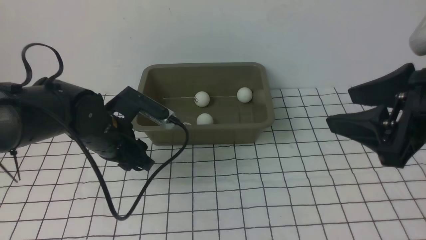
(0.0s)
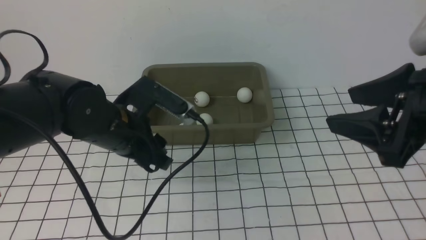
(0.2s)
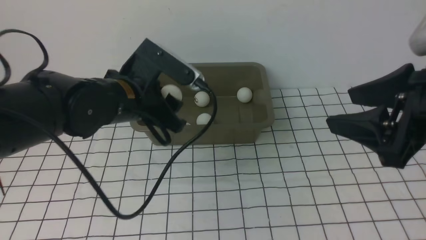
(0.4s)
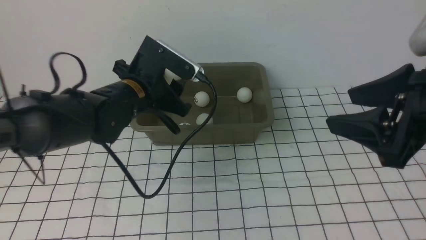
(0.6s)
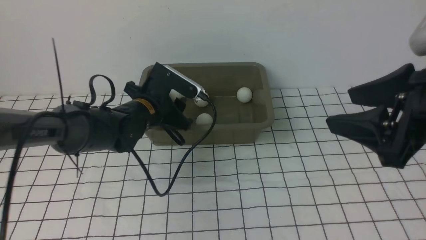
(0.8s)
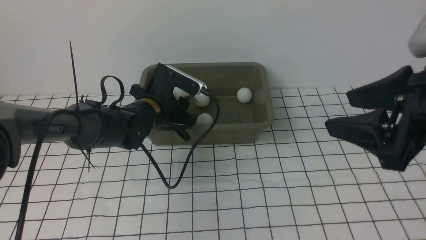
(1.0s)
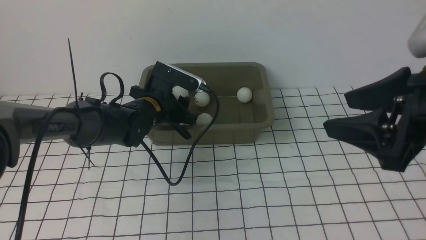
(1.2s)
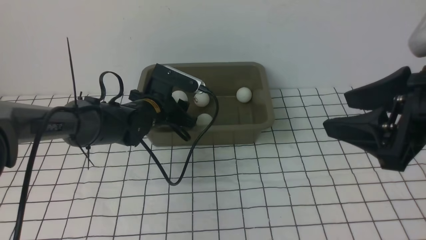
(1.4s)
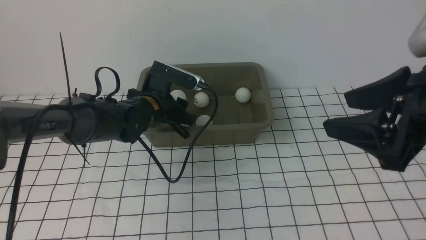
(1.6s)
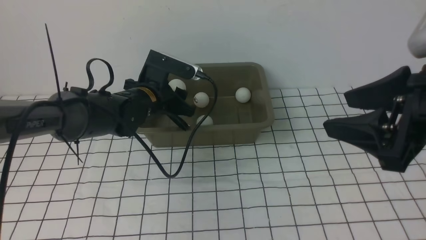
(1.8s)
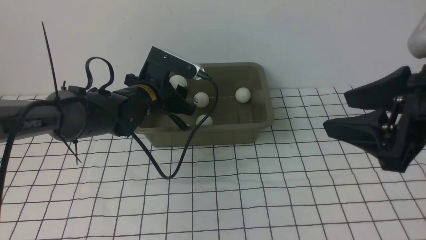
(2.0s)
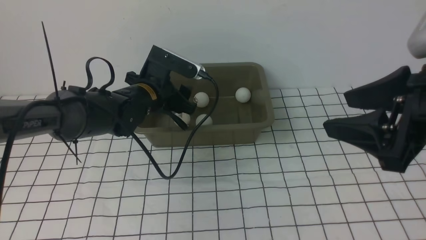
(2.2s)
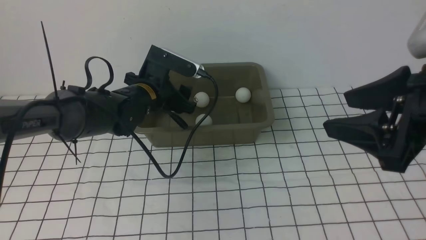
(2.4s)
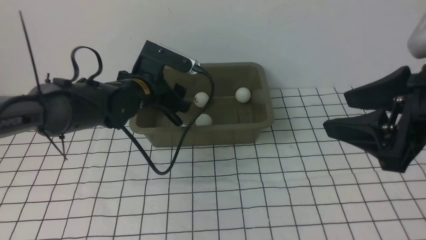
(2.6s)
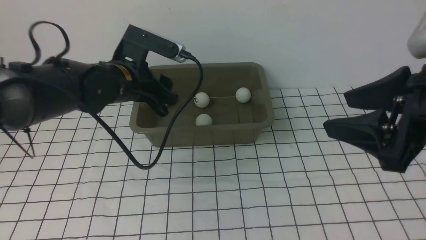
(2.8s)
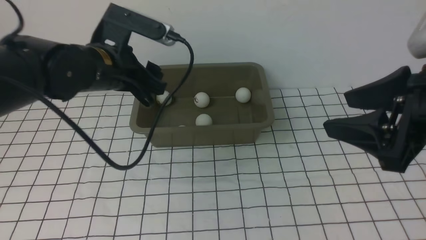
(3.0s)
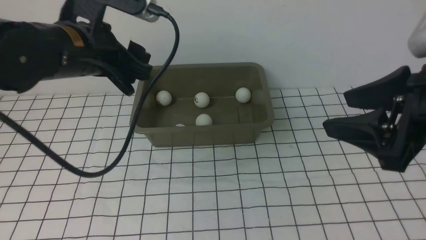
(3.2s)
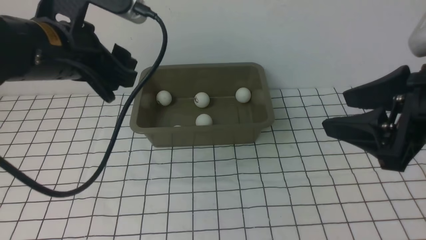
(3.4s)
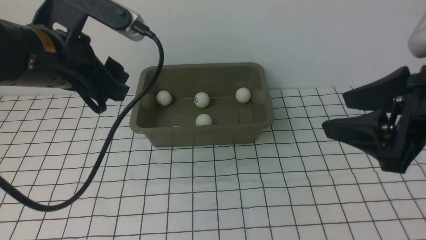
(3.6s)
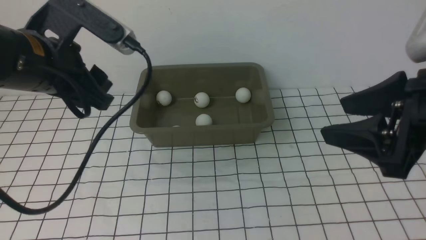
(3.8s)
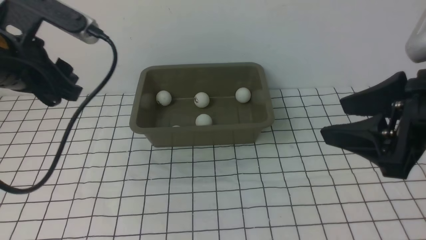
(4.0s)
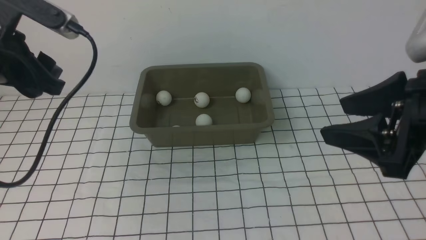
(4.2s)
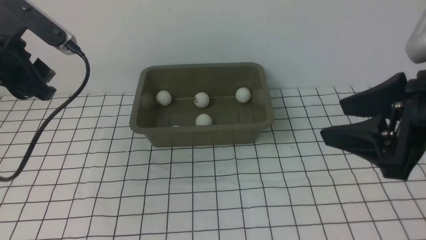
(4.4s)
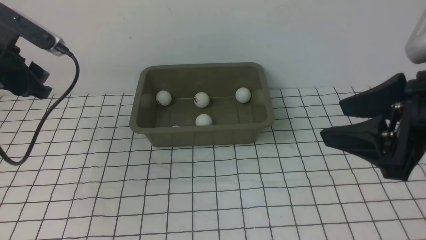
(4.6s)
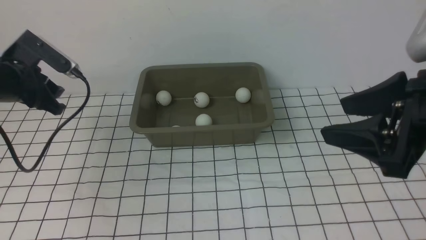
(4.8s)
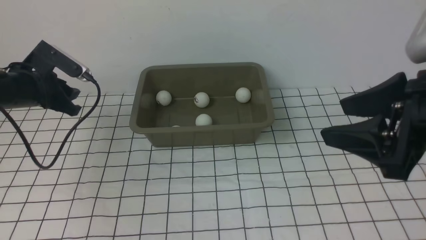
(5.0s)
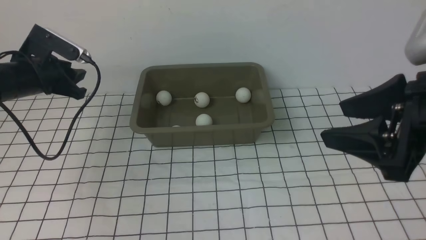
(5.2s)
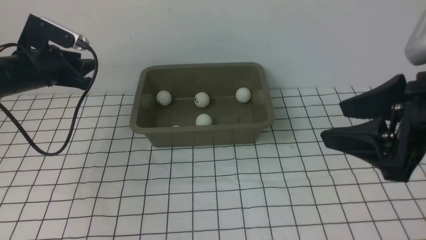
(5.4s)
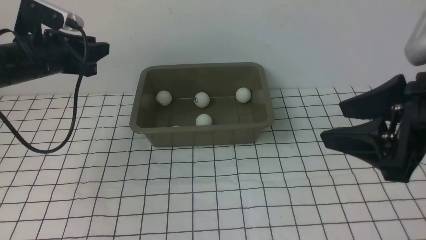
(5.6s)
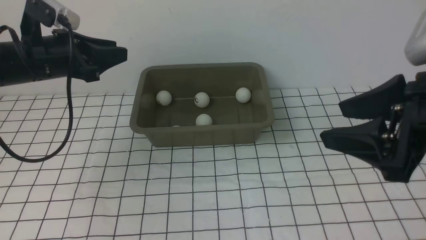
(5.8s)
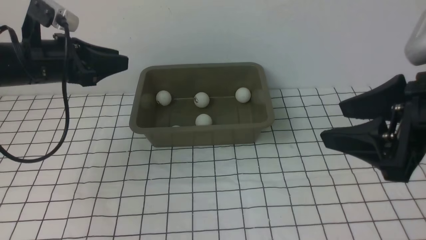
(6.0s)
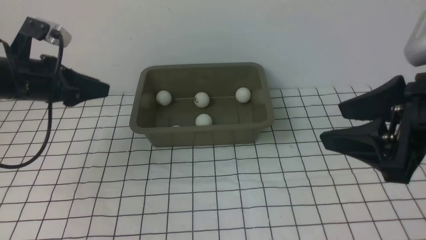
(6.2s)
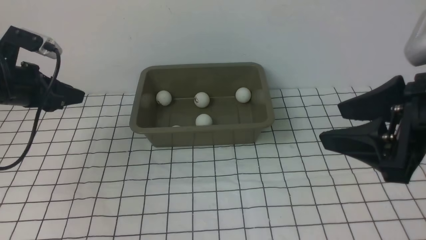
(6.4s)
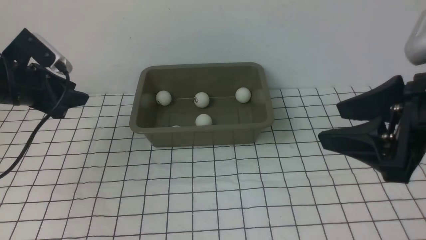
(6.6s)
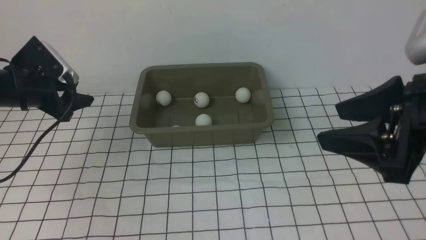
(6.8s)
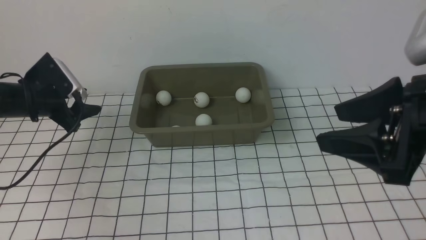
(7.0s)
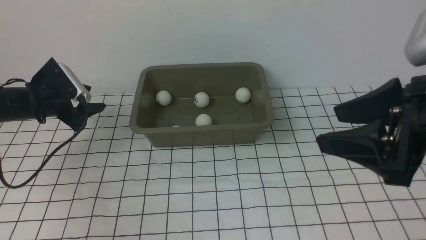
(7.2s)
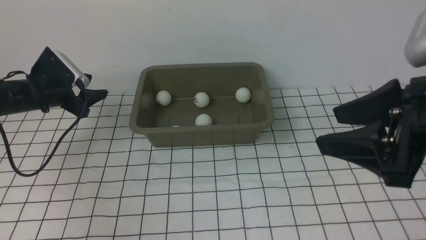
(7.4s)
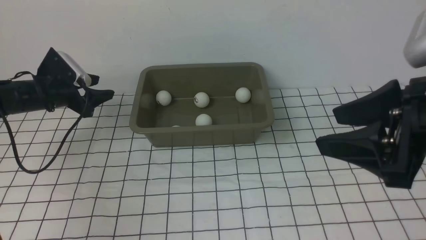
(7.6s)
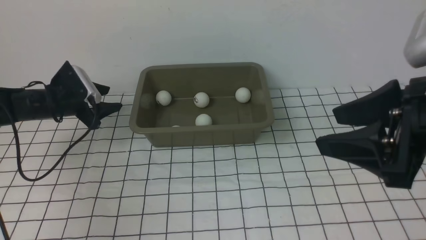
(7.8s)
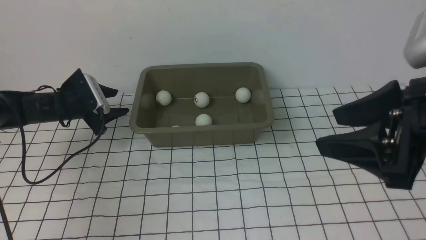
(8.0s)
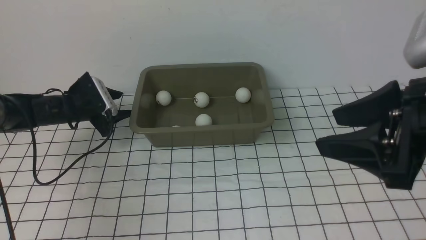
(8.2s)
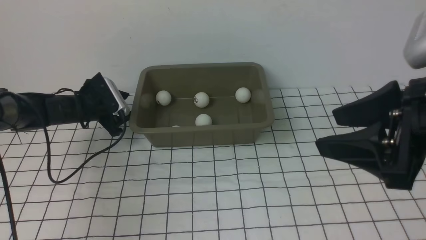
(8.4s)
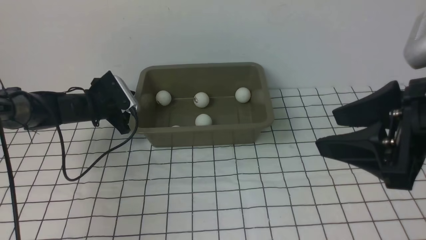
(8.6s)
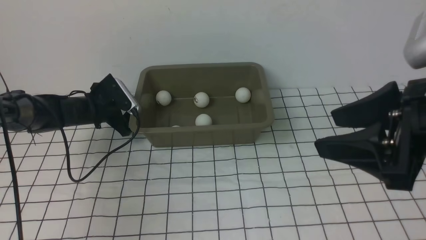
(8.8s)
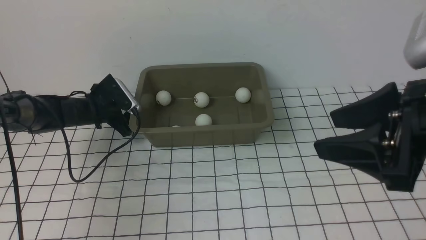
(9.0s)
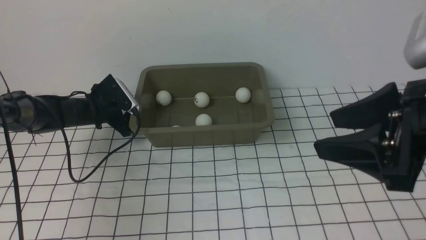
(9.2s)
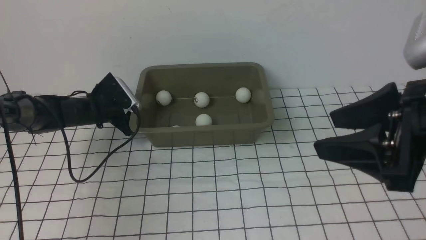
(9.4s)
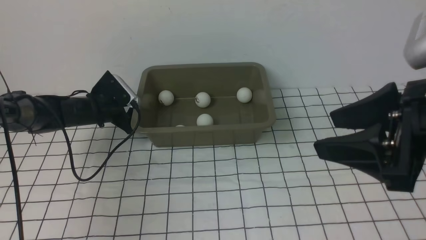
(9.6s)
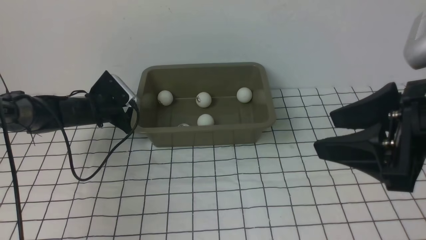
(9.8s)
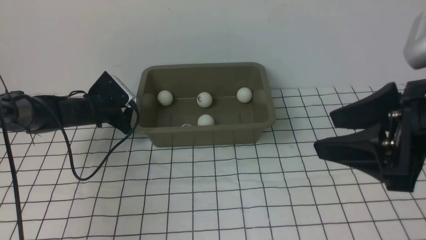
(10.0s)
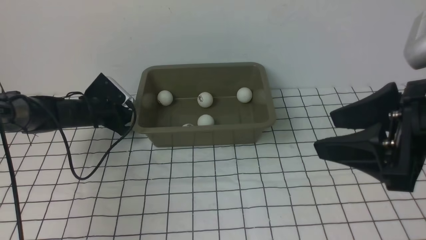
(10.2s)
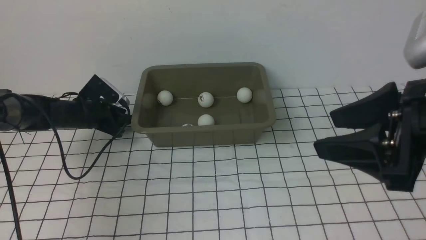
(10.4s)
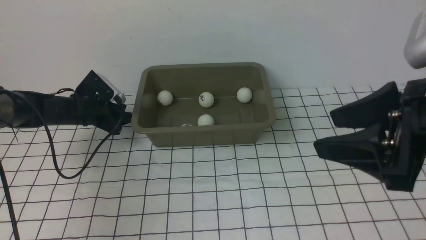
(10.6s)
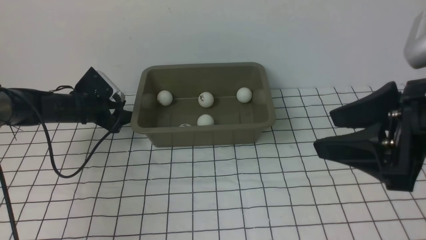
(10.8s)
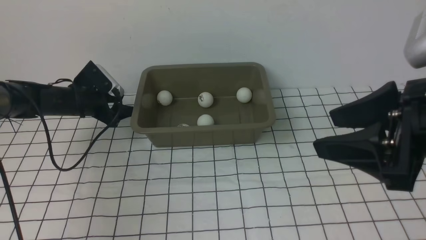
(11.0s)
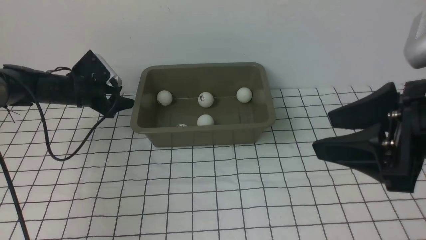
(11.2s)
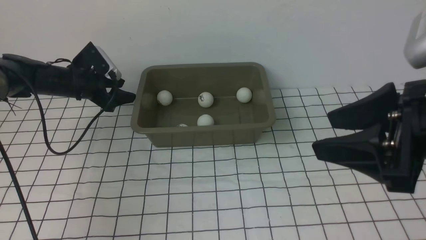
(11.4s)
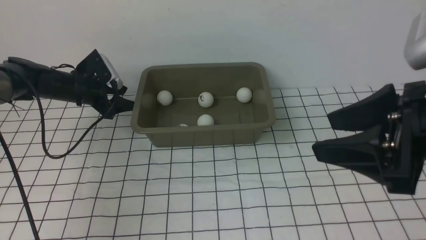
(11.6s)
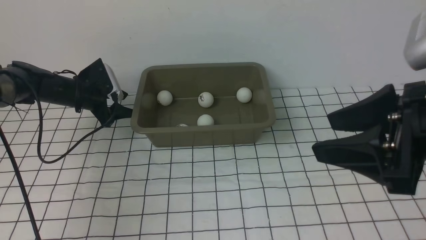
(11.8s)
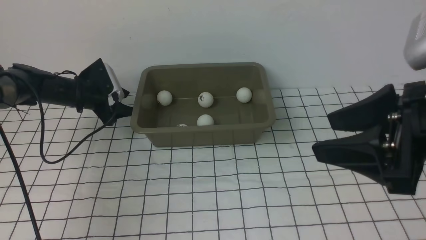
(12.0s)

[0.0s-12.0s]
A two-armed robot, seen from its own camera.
Step, 0.2s to 2.2s: use the left arm to put the table tennis ball into the box.
0.0s to 1.6s: The left gripper moves forward, some 10 cm.
1.6s to 3.0s: The left gripper goes about 20 cm upward and backward.
3.0s to 4.4s: The left gripper goes approximately 10 cm to the left.
6.0s to 7.6s: The left gripper travels downward, forward and to the left by approximately 15 cm, and opens.
7.6s to 9.0s: The left gripper heads to the right and downward, covering some 10 cm.
9.0s to 10.4s: The grippers make only small movements.
10.4s to 12.0s: The left gripper opens up.

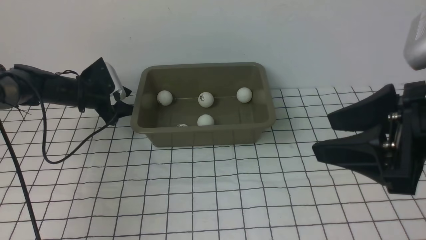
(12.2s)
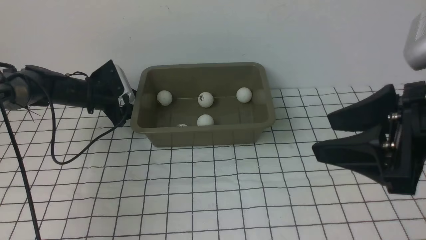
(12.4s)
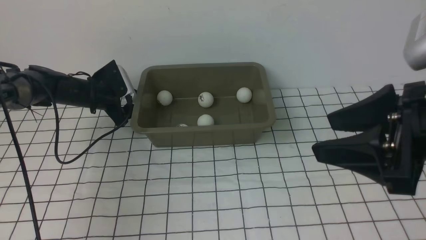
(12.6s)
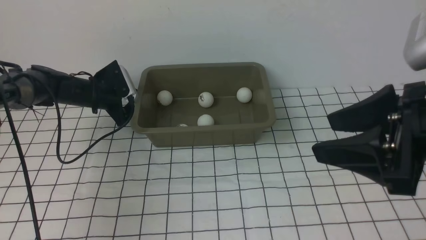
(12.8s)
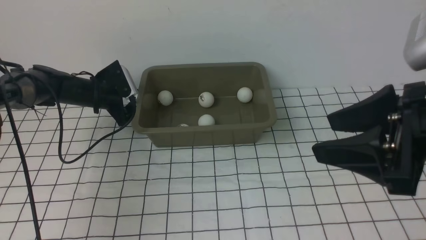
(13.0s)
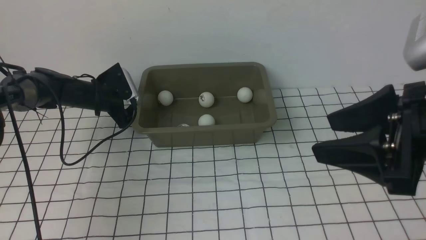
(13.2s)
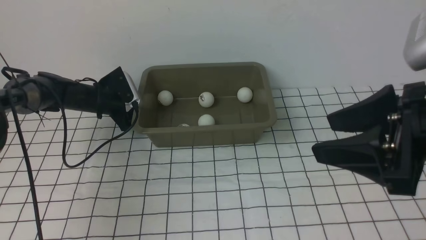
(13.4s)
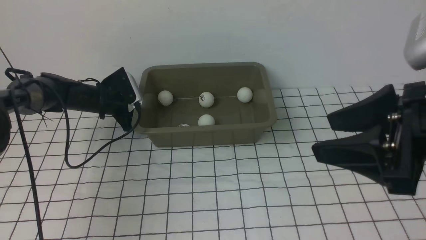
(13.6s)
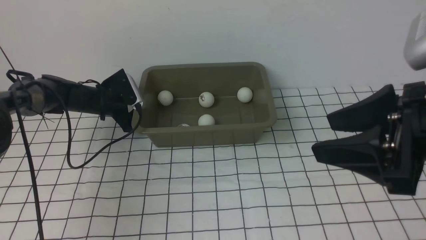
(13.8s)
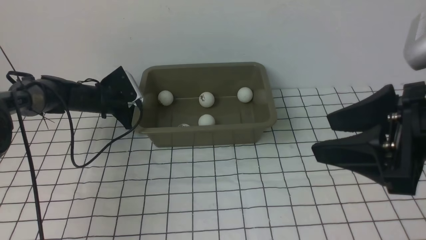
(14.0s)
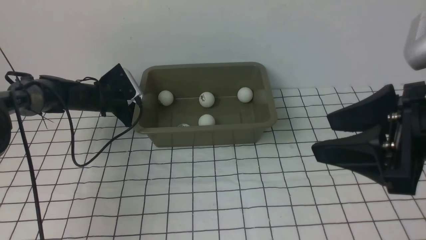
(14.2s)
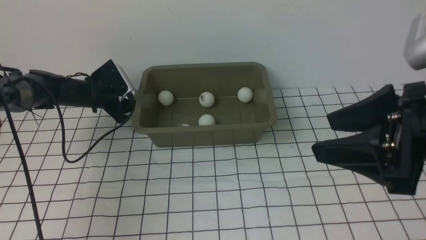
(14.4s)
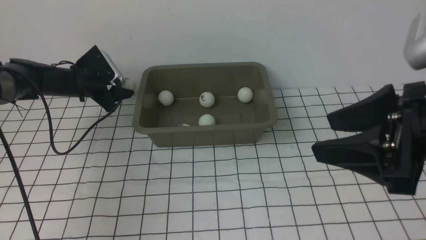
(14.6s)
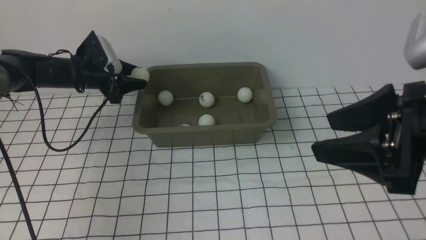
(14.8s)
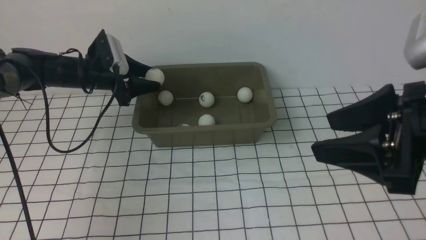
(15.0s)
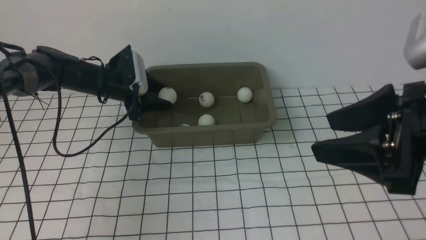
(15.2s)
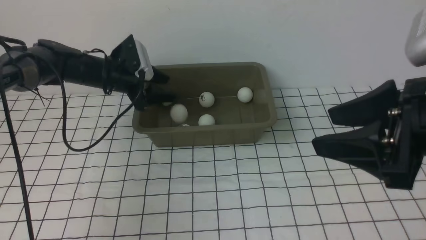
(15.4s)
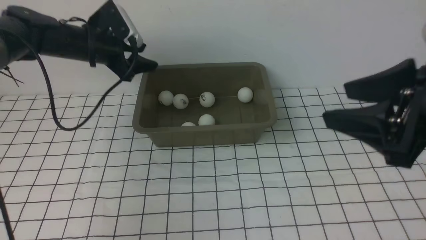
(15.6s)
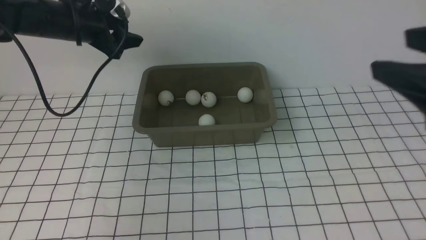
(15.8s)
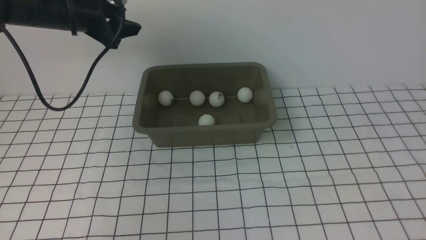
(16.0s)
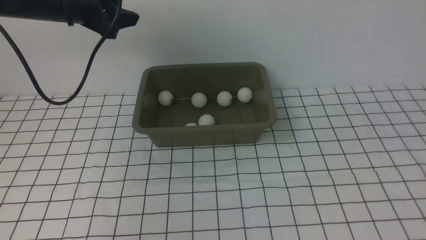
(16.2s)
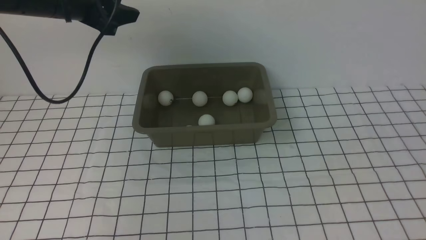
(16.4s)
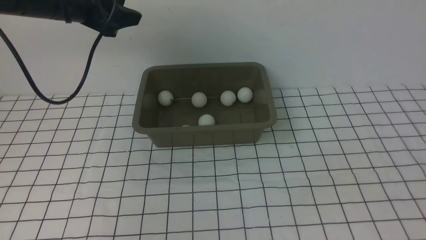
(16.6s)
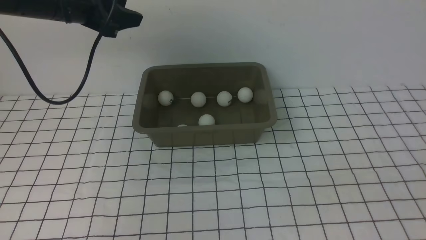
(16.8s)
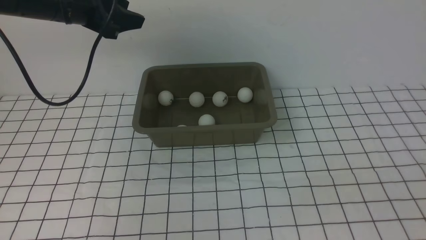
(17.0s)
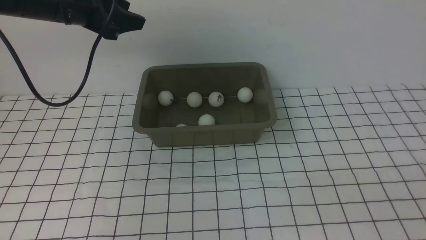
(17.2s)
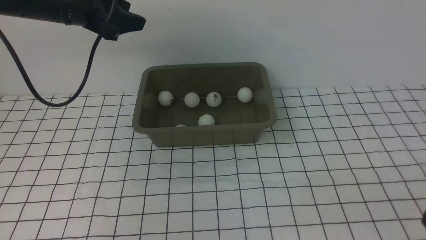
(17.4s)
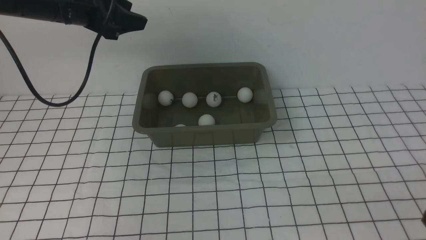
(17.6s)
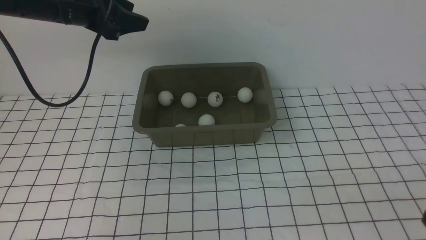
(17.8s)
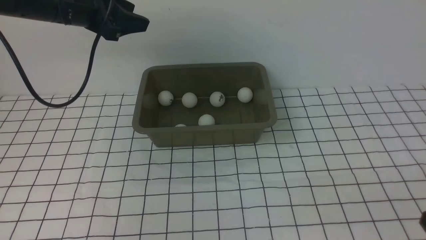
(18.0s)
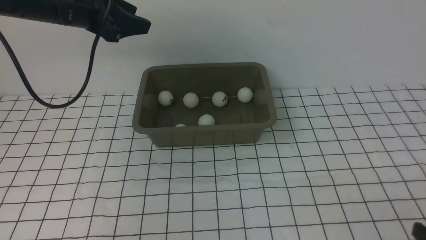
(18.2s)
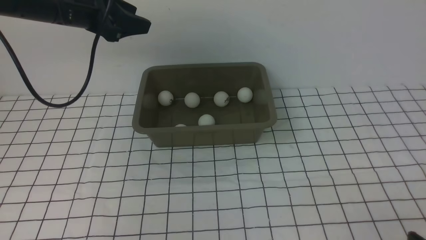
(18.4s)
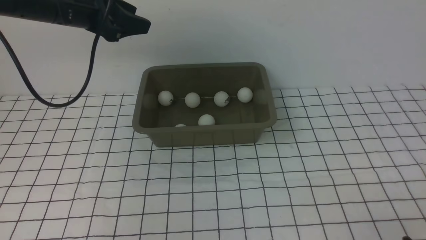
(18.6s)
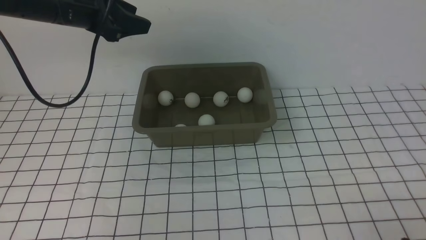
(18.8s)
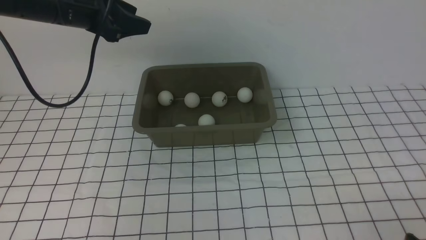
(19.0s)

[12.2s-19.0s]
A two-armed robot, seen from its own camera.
12.2s to 13.6s: The grippers make only small movements.
13.6s to 15.0s: The left gripper travels upward by some 10 cm.
15.0s to 16.2s: The left gripper moves upward, approximately 15 cm. The right gripper is displaced backward, to the right and upward by about 15 cm.
16.2s to 17.6s: The right gripper goes some 20 cm downward.
